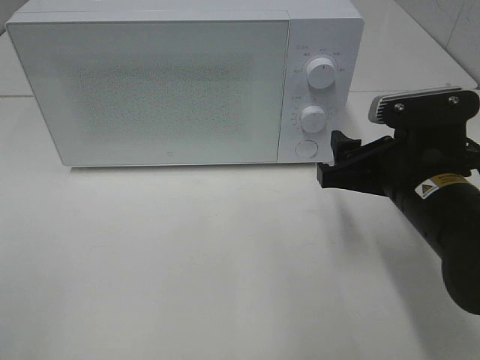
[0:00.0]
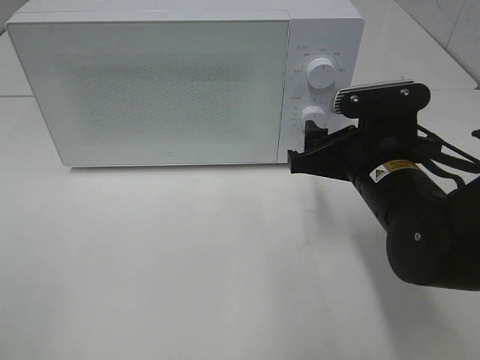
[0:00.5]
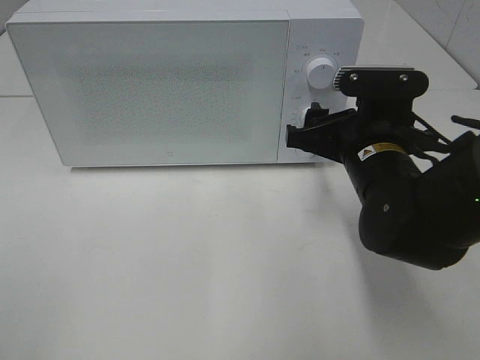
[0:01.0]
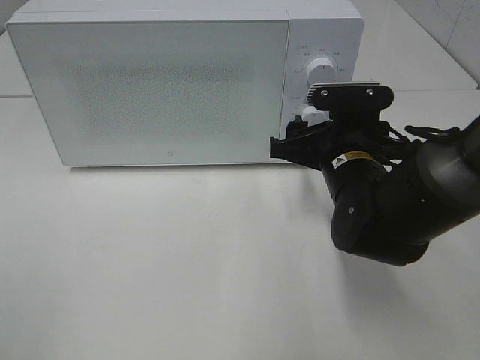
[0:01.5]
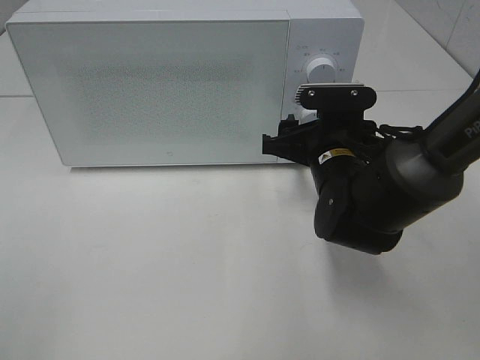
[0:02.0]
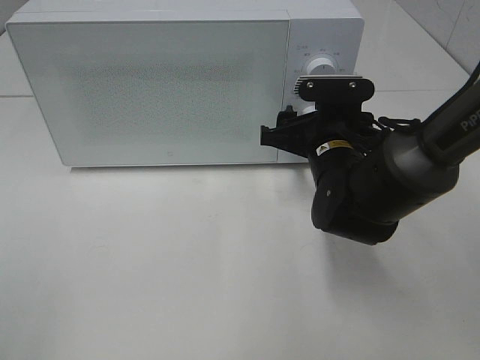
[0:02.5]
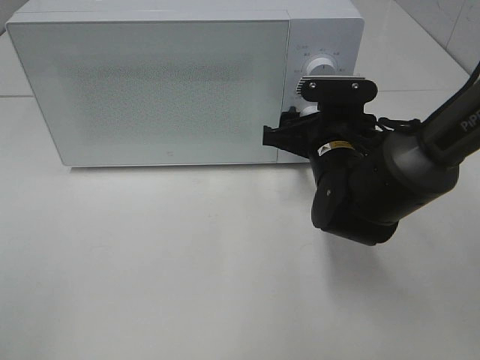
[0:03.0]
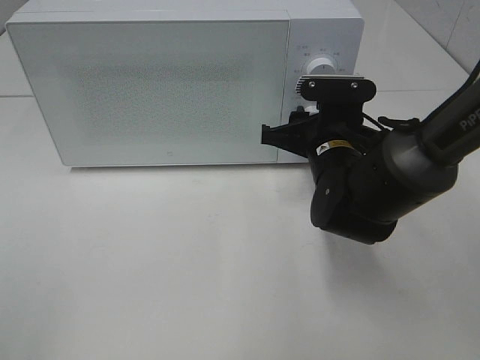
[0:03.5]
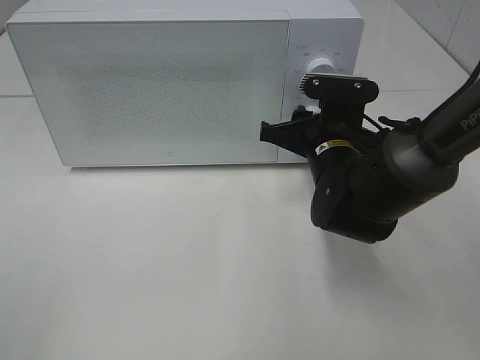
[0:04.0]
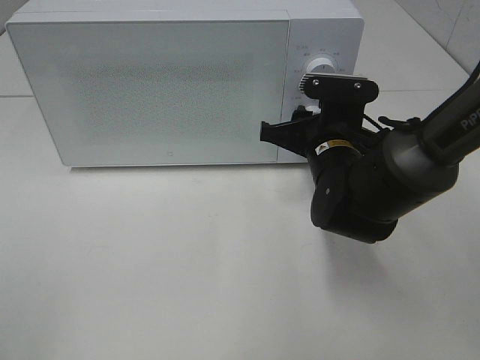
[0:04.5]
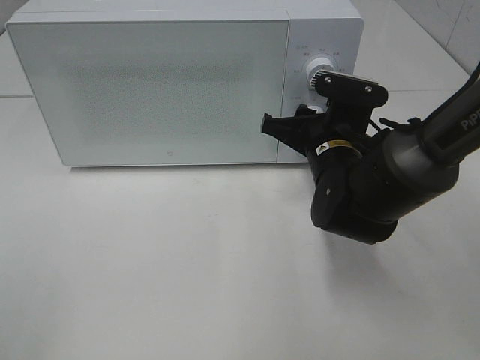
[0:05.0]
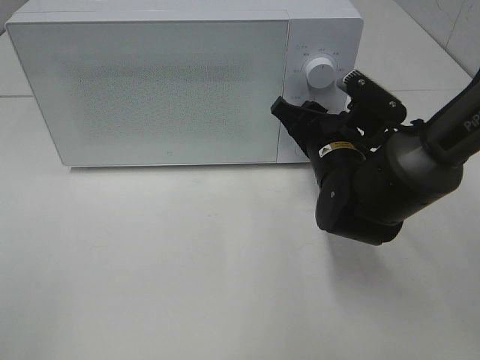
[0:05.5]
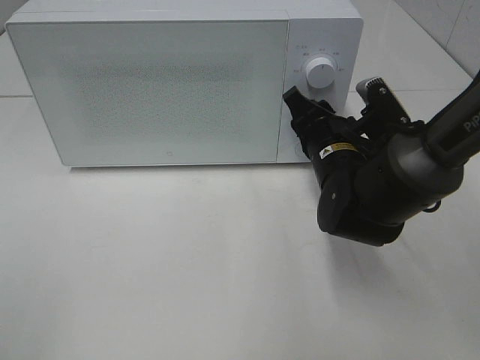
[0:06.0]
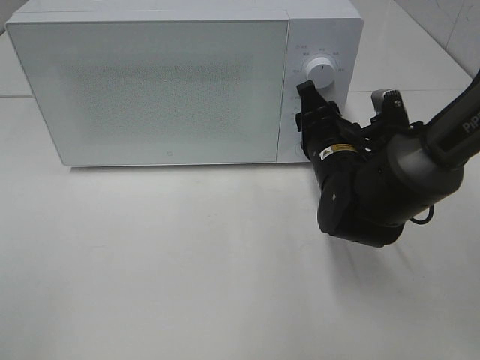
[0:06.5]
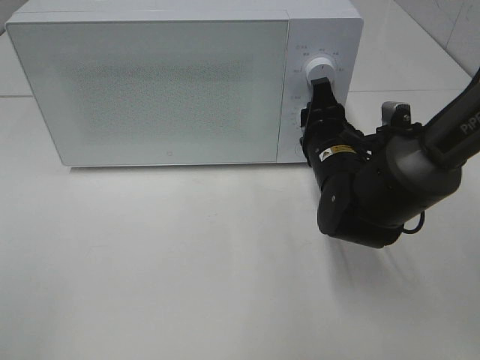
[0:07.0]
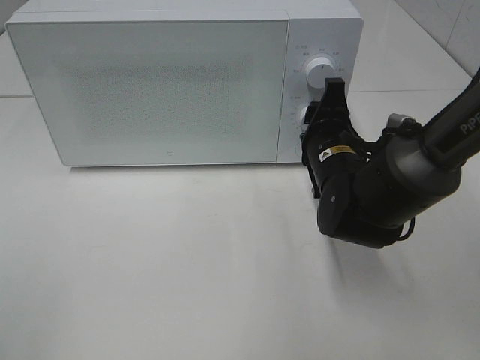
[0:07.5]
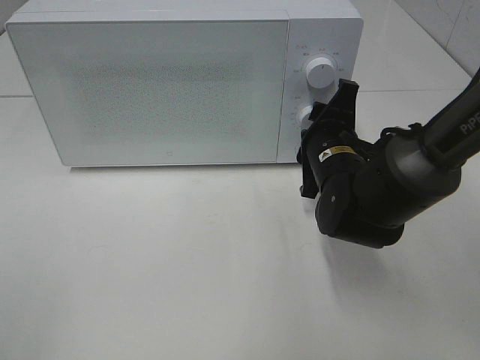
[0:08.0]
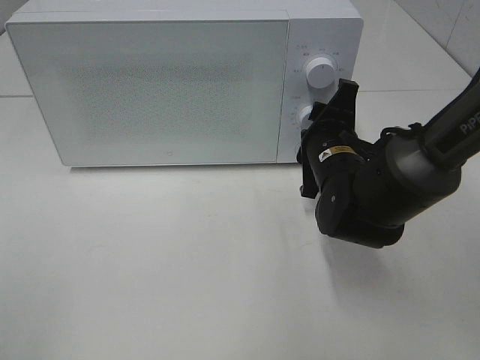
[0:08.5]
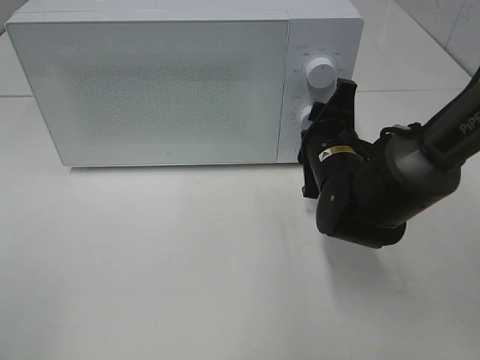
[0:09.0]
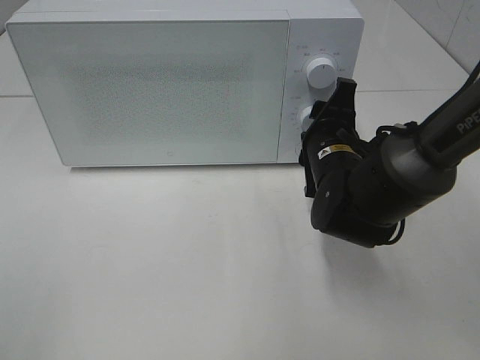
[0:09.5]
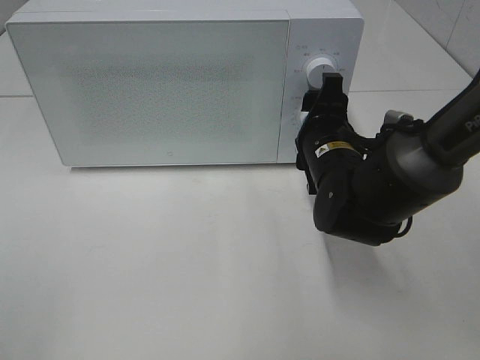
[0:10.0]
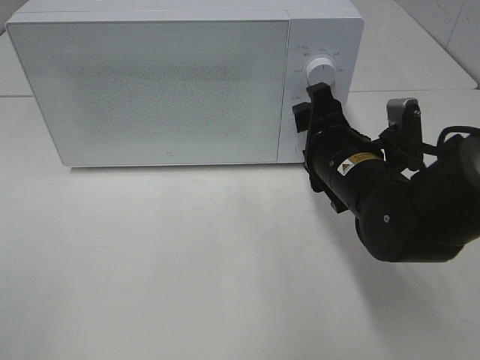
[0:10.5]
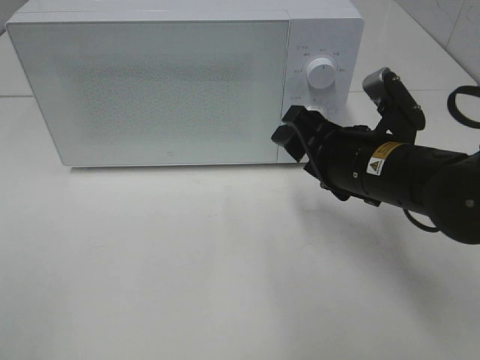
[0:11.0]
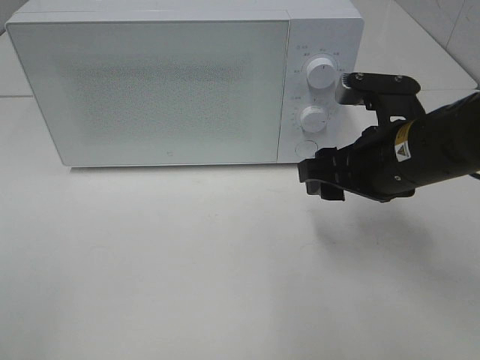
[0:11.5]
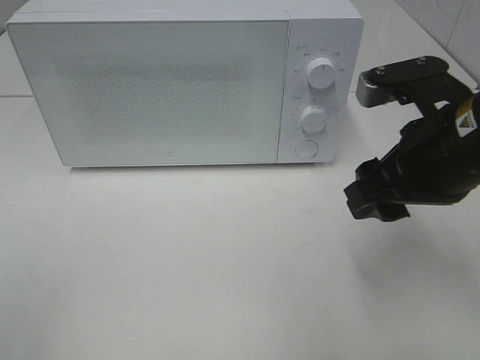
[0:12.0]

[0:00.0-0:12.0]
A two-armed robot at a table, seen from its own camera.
Task of the whole recording: Heat the burger.
Step, 0:00.0 to 0:09.5: Right hand: twist timer button.
0:00.0 to 0:02.0: The right gripper moves forward and to the left, some 10 cm.
0:02.0 to 0:04.0: The right gripper closes.
0:08.0 to 0:10.0: The grippers move only a little.
0:10.0 to 0:12.0: The right gripper goes some 15 cm upward and backward.

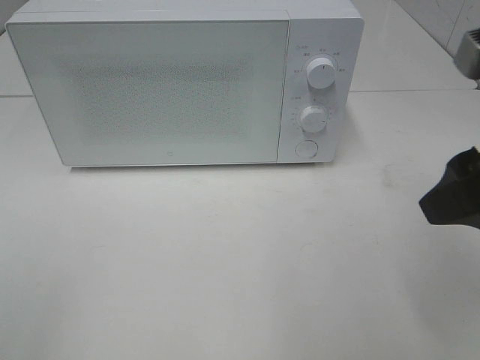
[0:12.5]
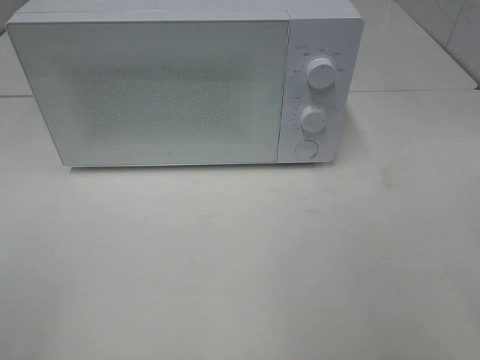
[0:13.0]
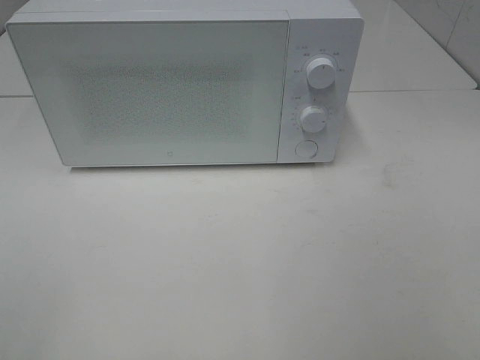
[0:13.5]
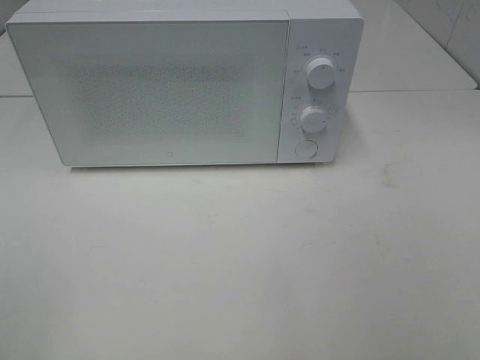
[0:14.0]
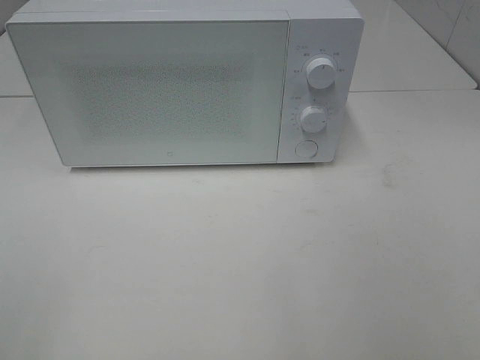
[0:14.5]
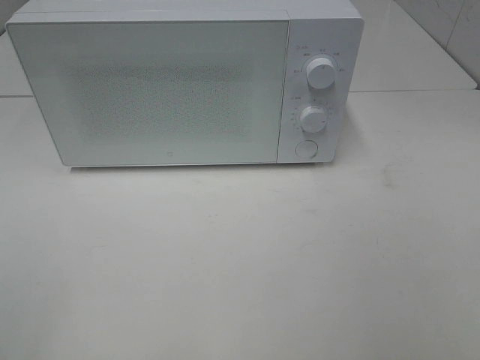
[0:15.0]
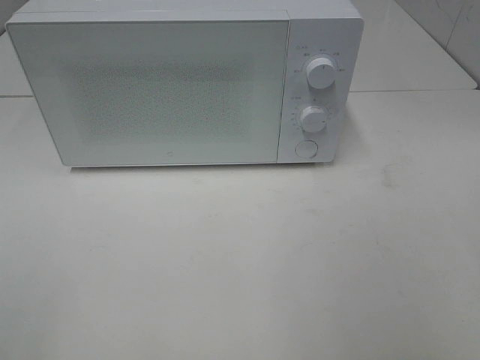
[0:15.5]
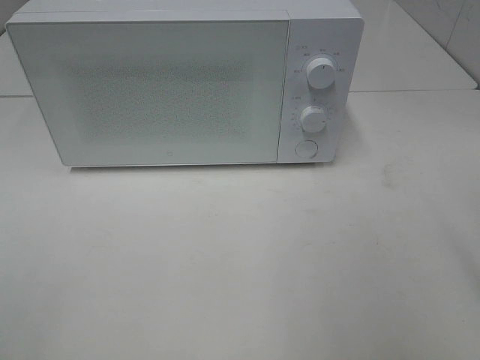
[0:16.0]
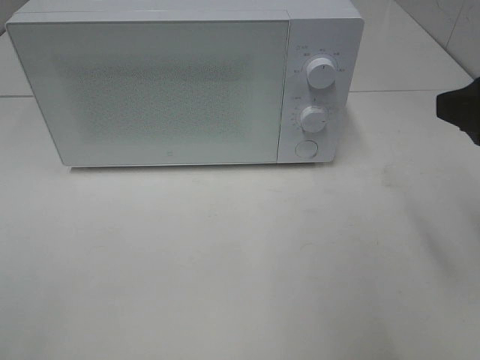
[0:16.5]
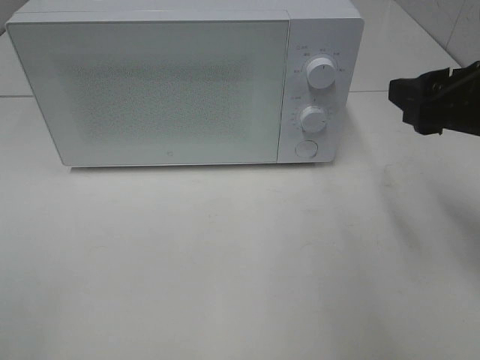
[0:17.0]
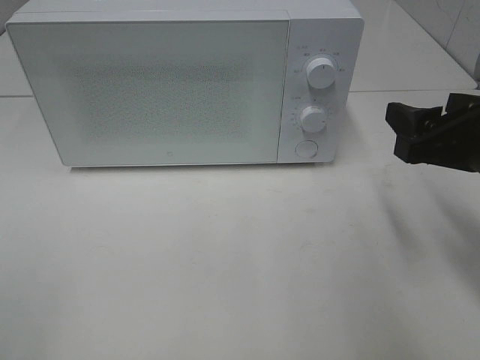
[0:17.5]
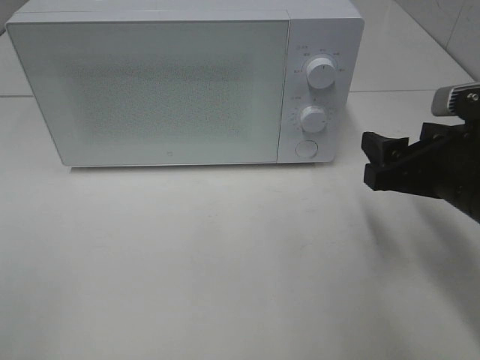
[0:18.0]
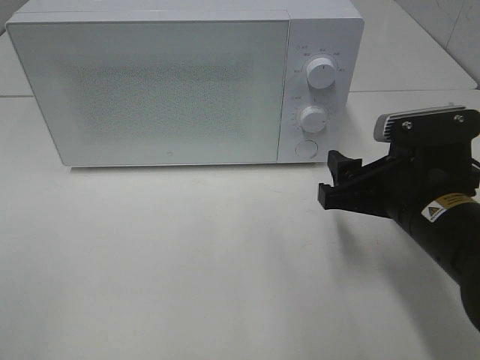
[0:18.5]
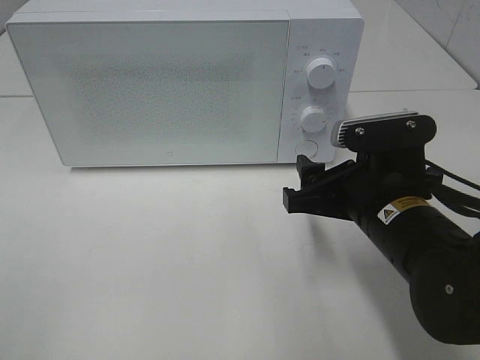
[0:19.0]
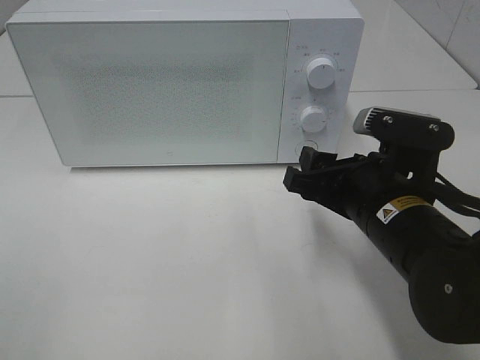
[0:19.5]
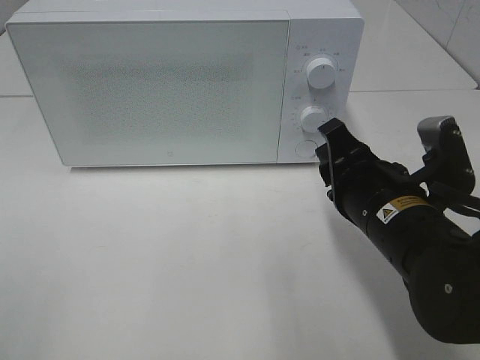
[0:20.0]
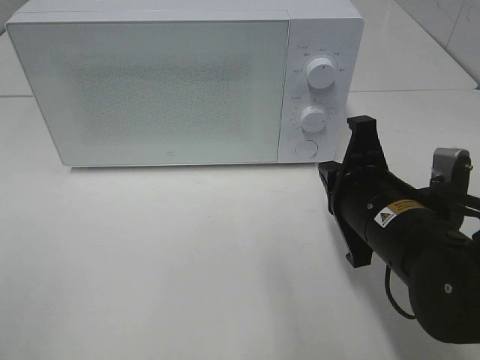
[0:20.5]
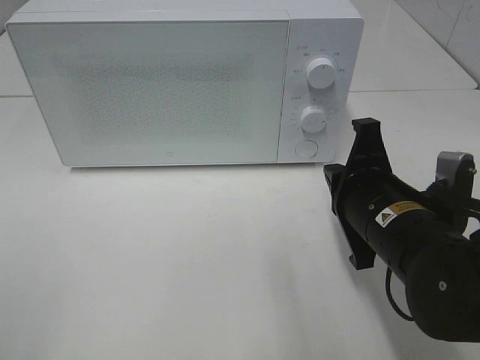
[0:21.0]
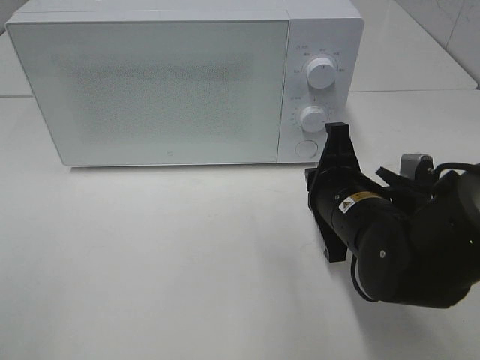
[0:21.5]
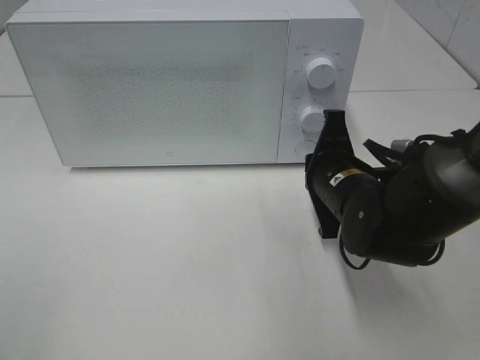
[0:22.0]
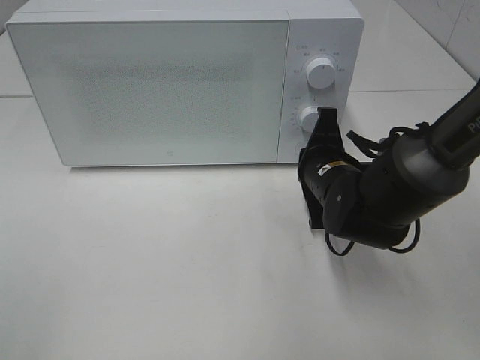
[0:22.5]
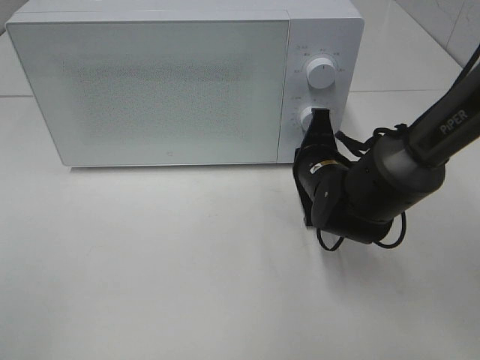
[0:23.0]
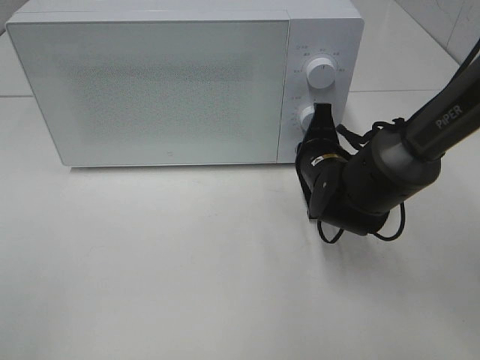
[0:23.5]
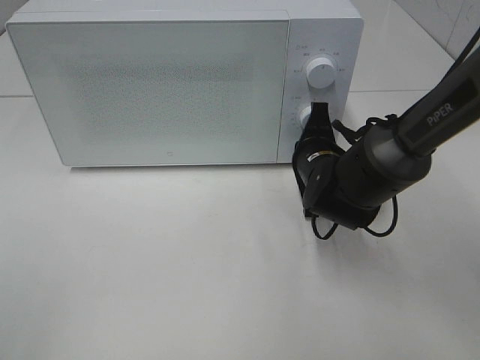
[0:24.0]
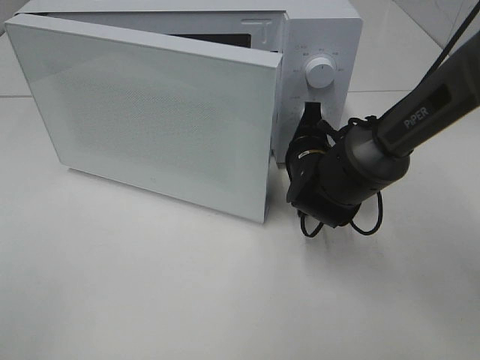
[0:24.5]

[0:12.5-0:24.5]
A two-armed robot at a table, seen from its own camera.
Task of the whole recording: Heat the burger.
0:12.5 to 0:14.5: The right gripper is displaced backward and to the right by some 20 cm.
0:14.5 to 0:16.5: The right gripper travels forward by approximately 20 cm.
0:16.5 to 0:18.5: The right gripper heads downward and to the left, covering roughly 15 cm.
0:18.5 to 0:20.5: The right gripper closes.
0:20.5 to 0:22.5: The right gripper heads forward, covering approximately 10 cm.

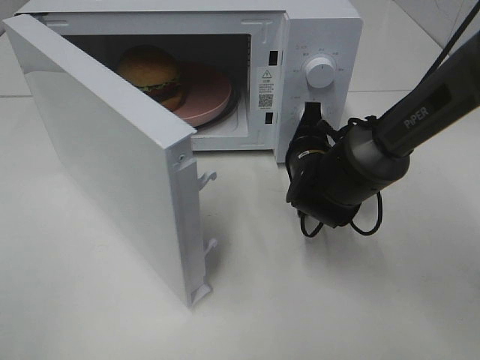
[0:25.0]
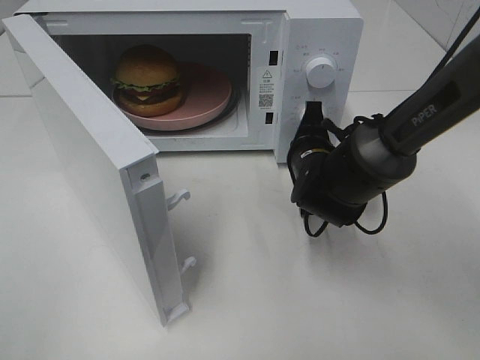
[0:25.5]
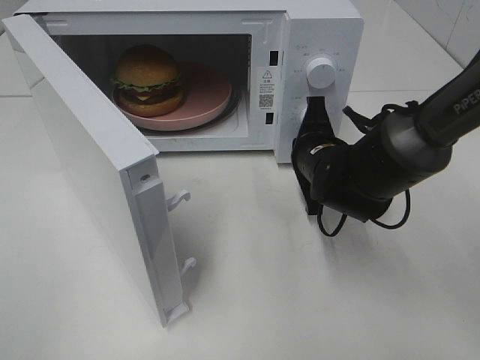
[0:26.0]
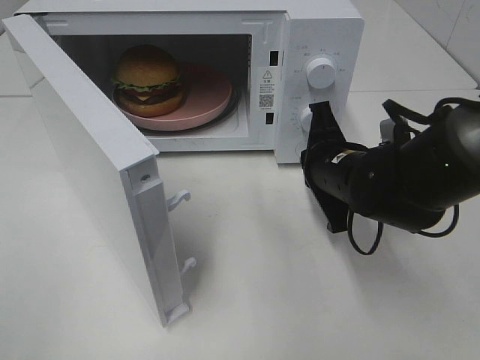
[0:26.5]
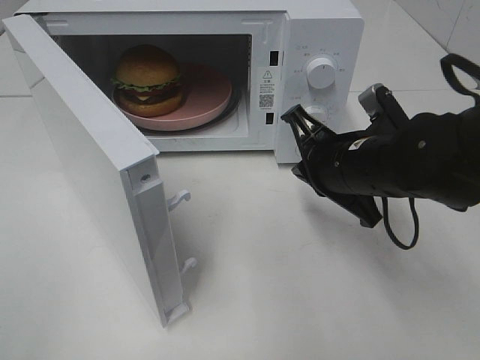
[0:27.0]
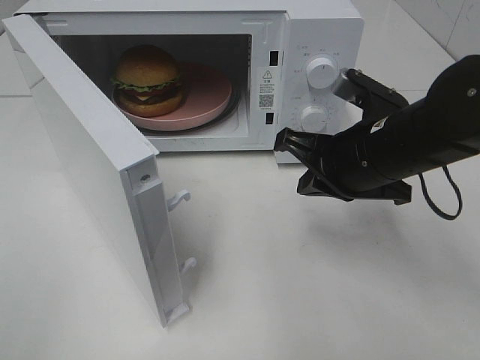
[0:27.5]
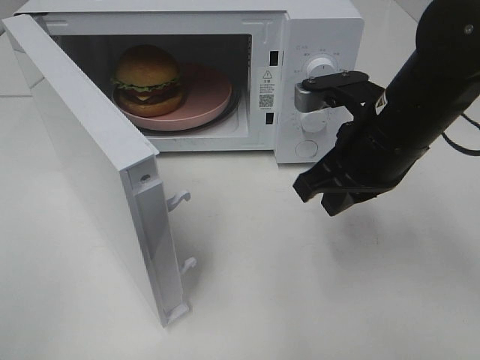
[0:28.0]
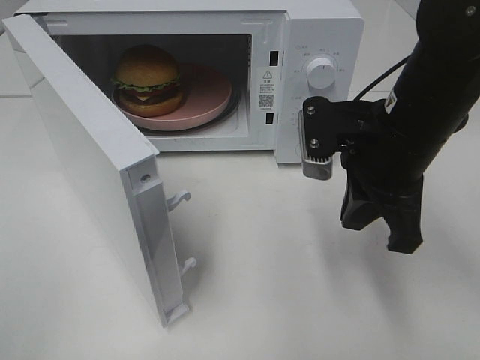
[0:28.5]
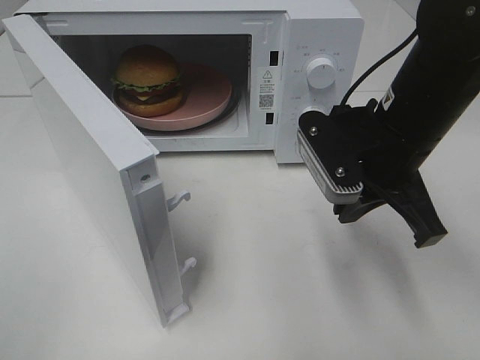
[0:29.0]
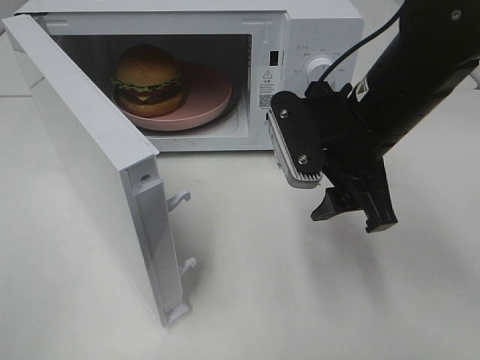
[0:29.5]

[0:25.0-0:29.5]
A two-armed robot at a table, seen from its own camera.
Task of the whole recording: Heat the burger.
0:25.0 to 0:27.0: The right gripper shifts roughly 10 cm backward and upward.
0:27.0 to 0:29.5: The right gripper shifts about 5 cm upward, and opens.
